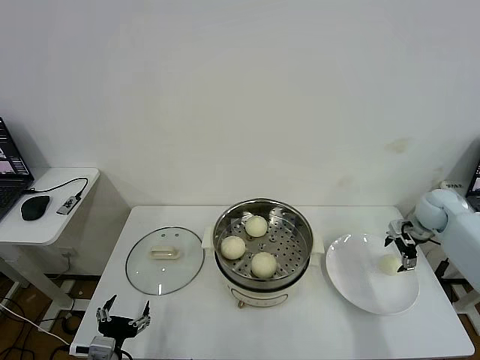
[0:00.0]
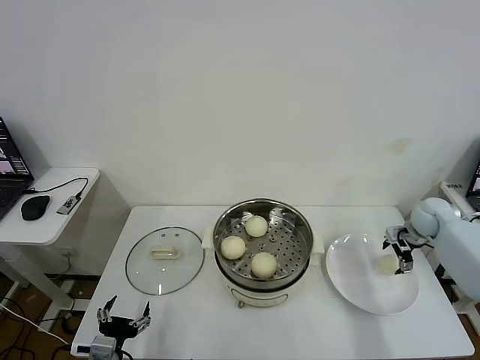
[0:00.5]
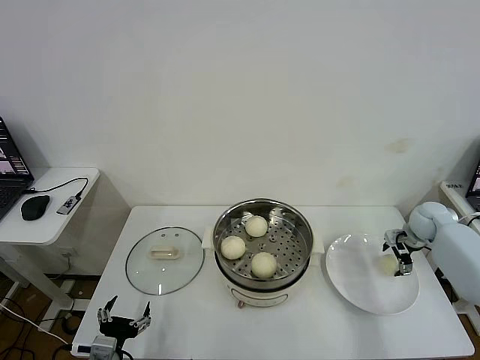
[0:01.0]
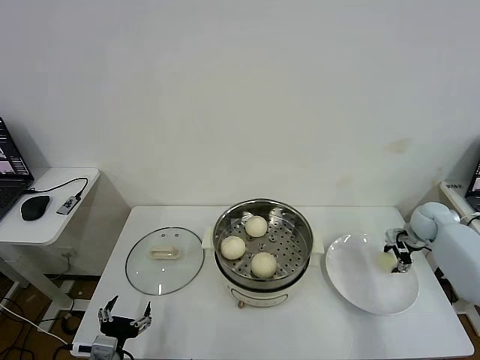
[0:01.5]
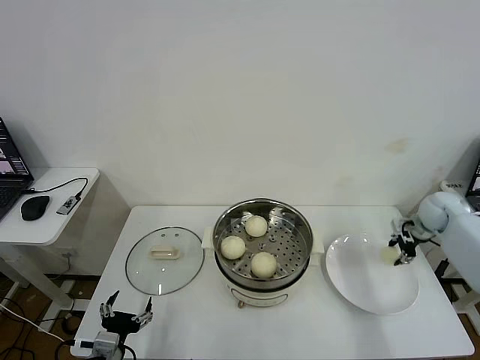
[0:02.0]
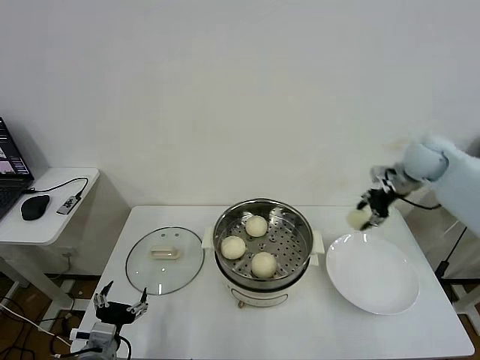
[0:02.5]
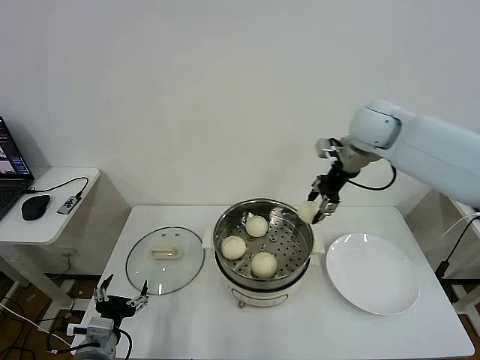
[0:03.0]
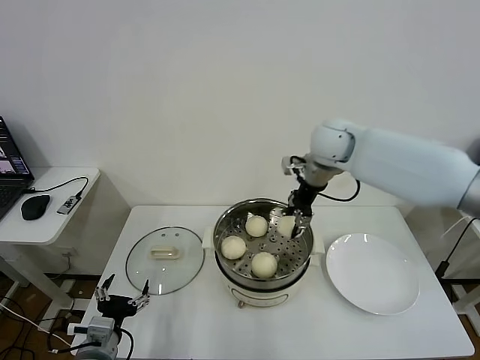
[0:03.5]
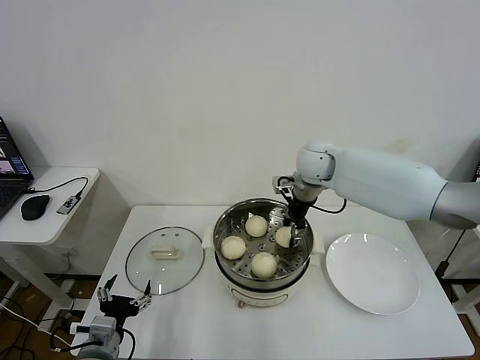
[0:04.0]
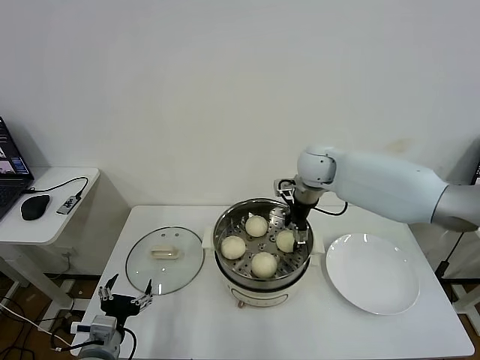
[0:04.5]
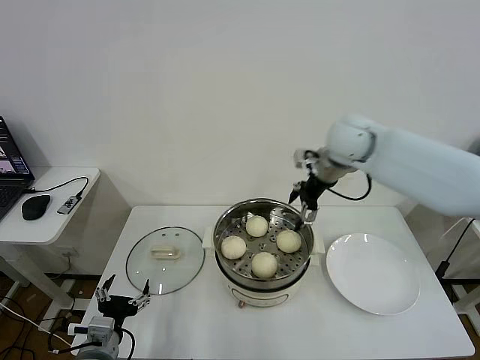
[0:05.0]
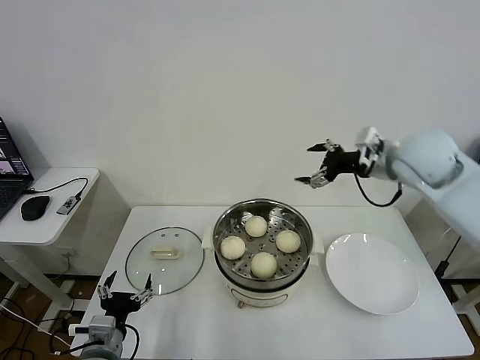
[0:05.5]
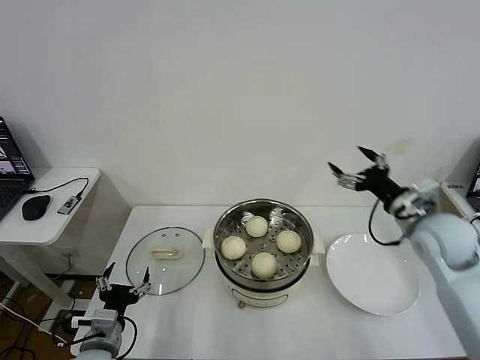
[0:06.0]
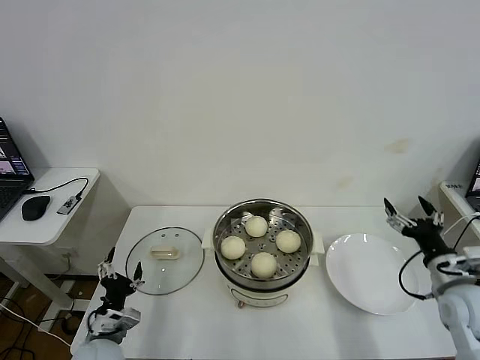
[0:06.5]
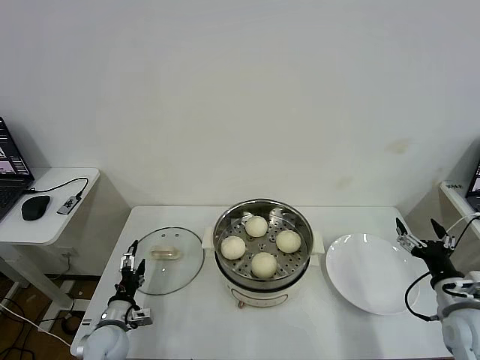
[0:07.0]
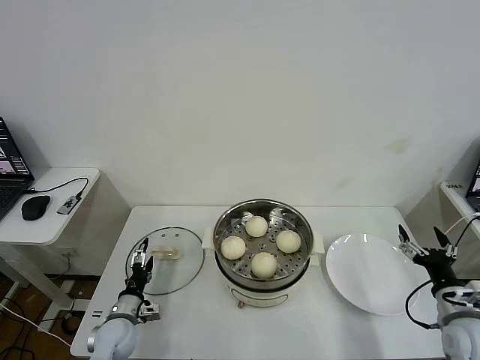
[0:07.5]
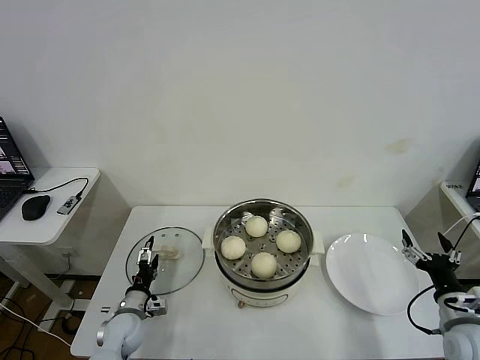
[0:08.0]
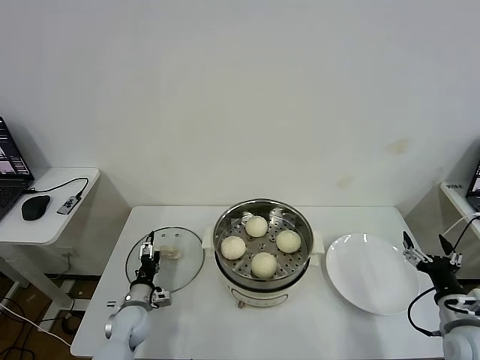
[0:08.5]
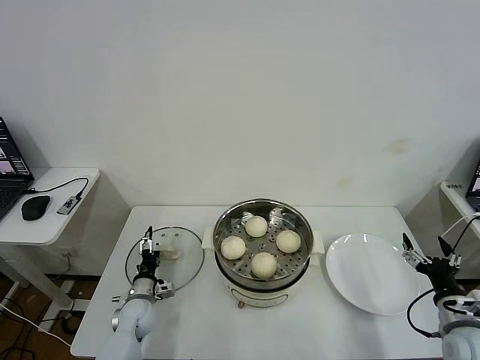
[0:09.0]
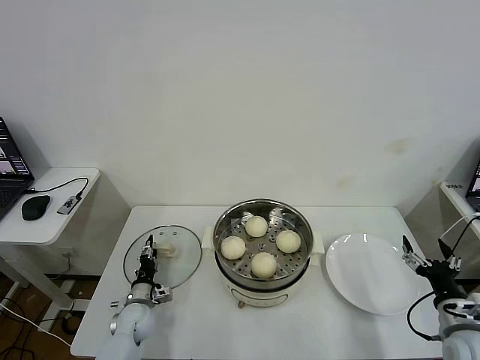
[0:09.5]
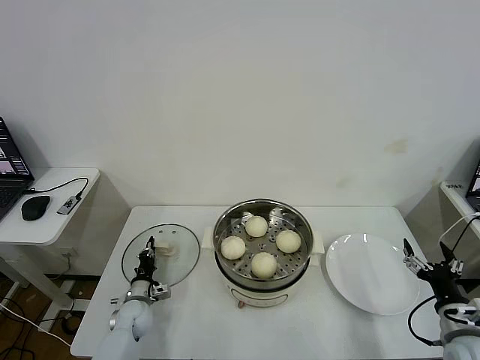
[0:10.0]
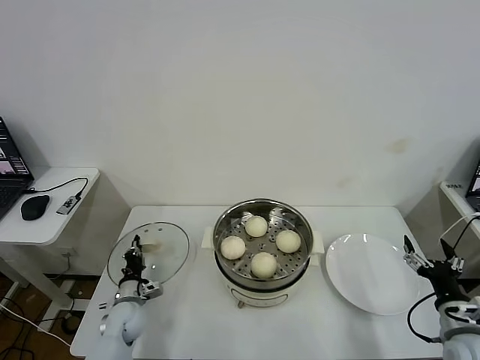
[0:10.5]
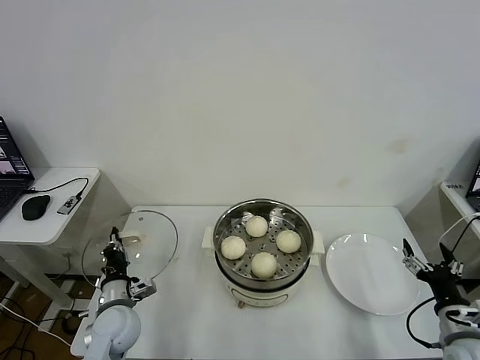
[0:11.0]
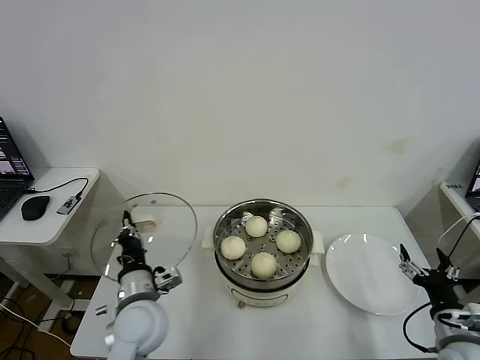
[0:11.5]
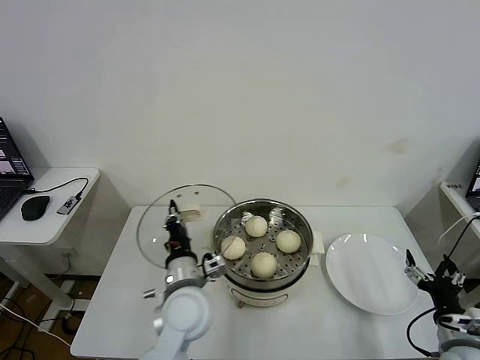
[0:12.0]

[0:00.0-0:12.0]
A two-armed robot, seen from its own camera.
Task of the whole recording: take steamed baozi put them in steamer then cover it.
Step, 0:00.0 to 0:02.0: Grasp the baozi in the plate with right gripper.
Step, 0:02.5 to 0:04.5: Place the baozi on the steamer with right gripper.
Step, 0:05.0 to 0:10.5: Grasp the pot lid with left gripper.
0:00.0 to 0:02.0: The right gripper closes up.
0:02.0 to 0:04.0: The right gripper goes approximately 35 cm to the left.
0:04.0 to 0:06.0: The right gripper shifts approximately 30 cm to the right and backward, and opens its fingers.
0:06.0 to 0:08.0: The right gripper heads backward, downward and to the right, covering roughly 20 cm; the left gripper moves downward and forward, some 15 cm.
0:08.0 to 0:10.0: The left gripper goes approximately 5 cm forward, and closes up.
0:10.0 to 0:12.0: The left gripper shifts roughly 30 cm upward and to the right.

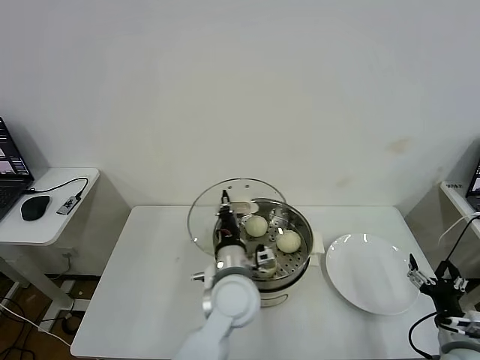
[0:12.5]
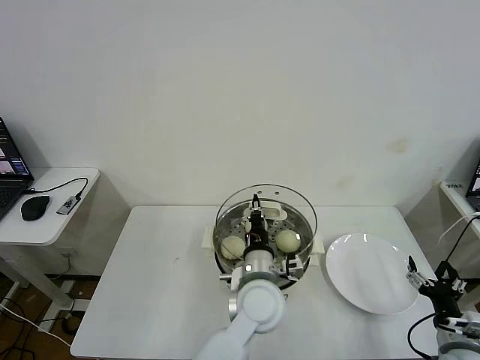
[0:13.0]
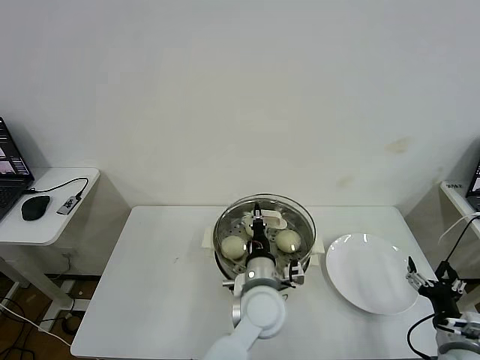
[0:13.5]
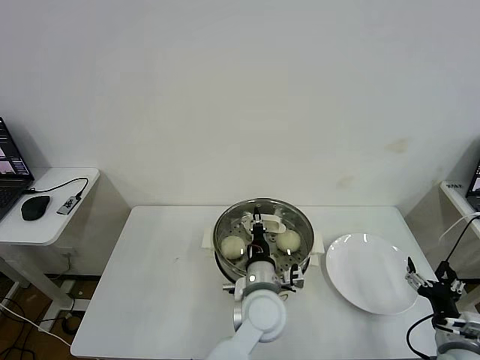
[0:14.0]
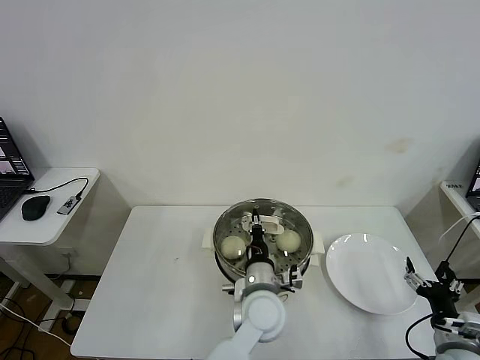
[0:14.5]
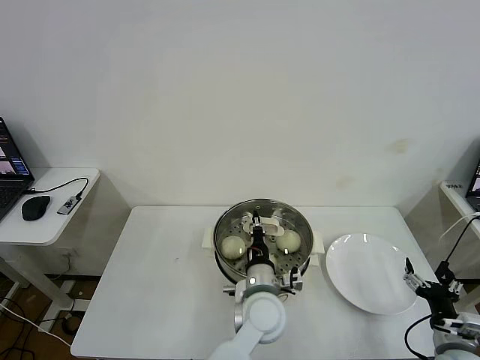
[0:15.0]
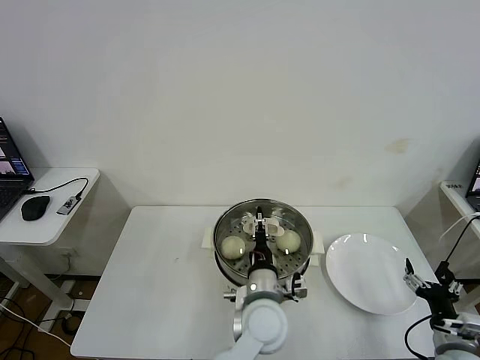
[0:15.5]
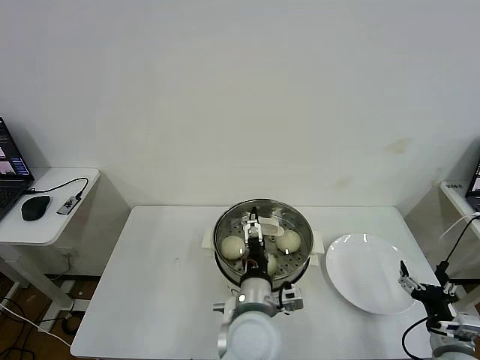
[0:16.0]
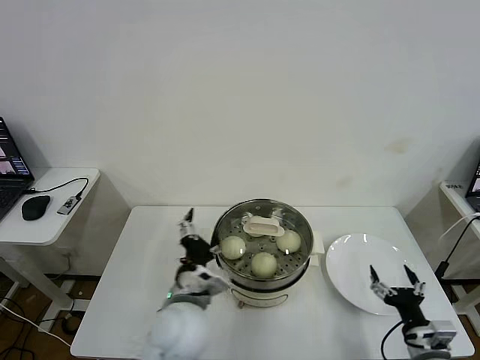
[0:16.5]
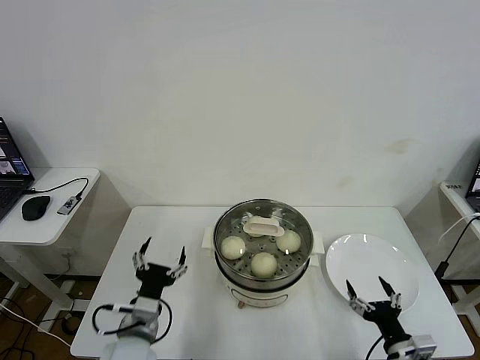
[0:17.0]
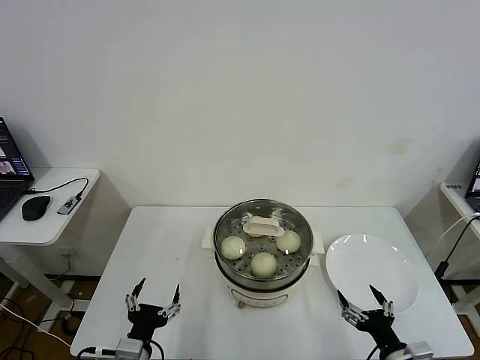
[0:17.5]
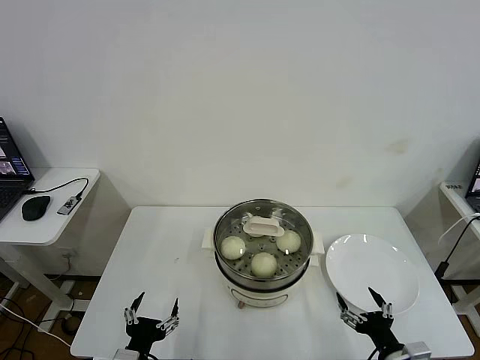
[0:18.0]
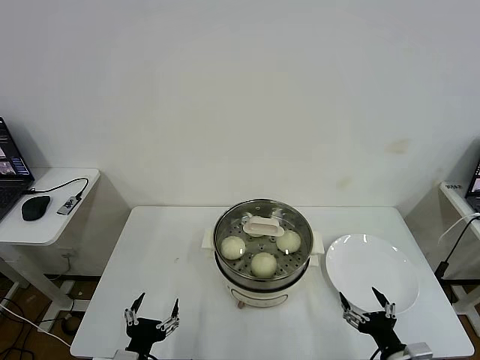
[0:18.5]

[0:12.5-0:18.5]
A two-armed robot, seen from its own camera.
Task of the whole recording: take steamed baozi put them in steamer then cover it.
Step, 0:12.5 to 0:16.0: Place the pot lid on the steamer with left gripper.
0:12.5 to 0:14.5: The left gripper is displaced to the right by approximately 5 cm.
0:14.5 to 0:16.5: The left gripper shifts approximately 15 cm to the left and upward, and opens up.
0:16.5 to 0:18.5: The right gripper moves to the left, some 5 cm, while the left gripper heads to the left, backward and downward, covering approximately 20 cm.

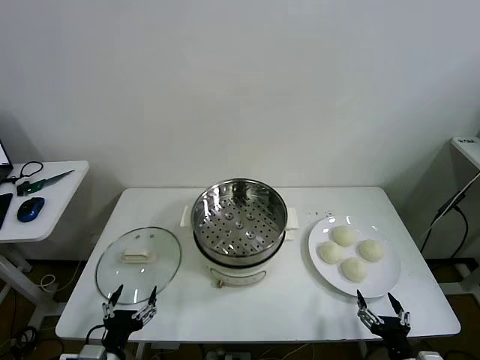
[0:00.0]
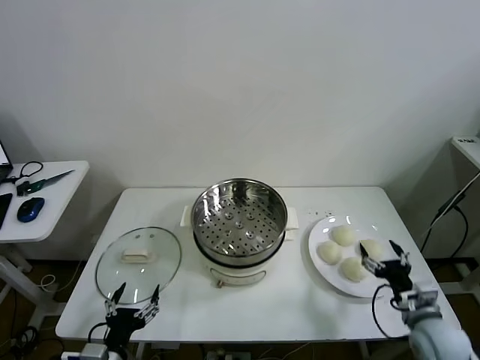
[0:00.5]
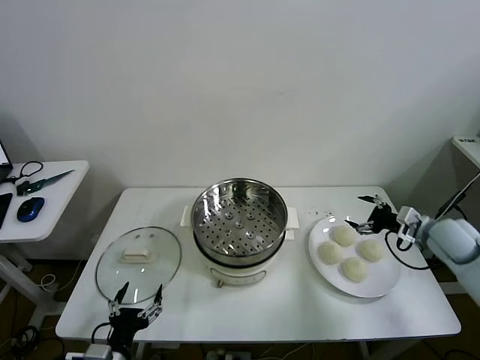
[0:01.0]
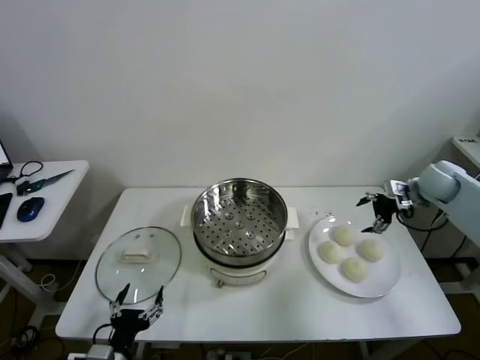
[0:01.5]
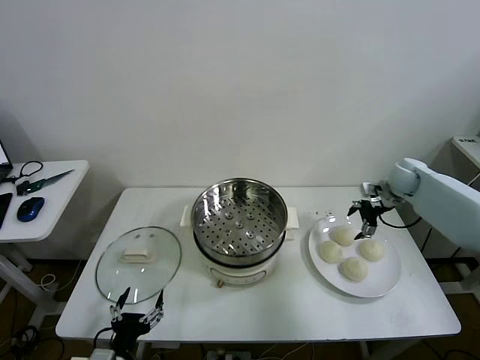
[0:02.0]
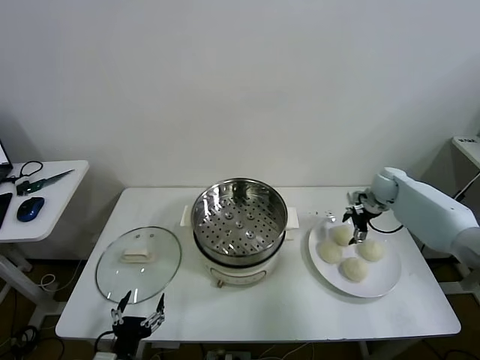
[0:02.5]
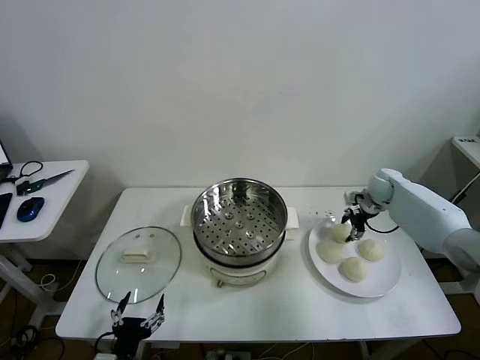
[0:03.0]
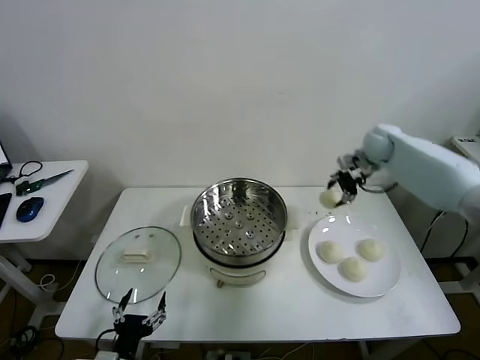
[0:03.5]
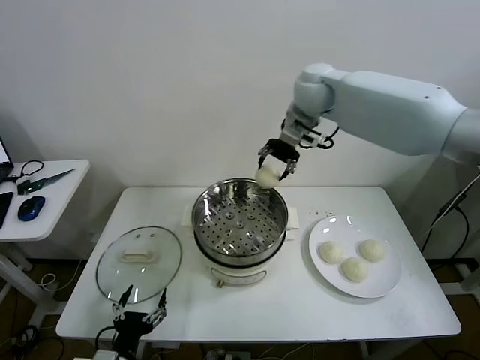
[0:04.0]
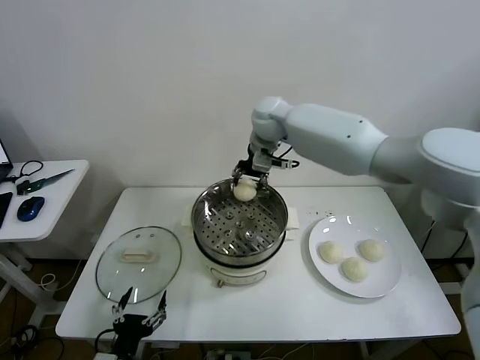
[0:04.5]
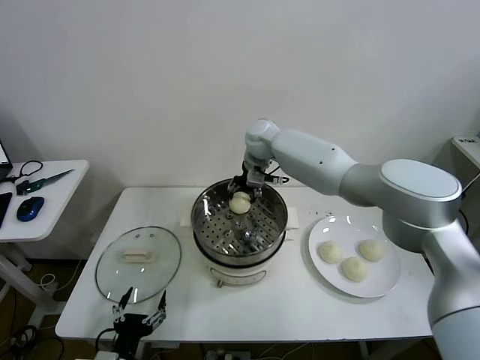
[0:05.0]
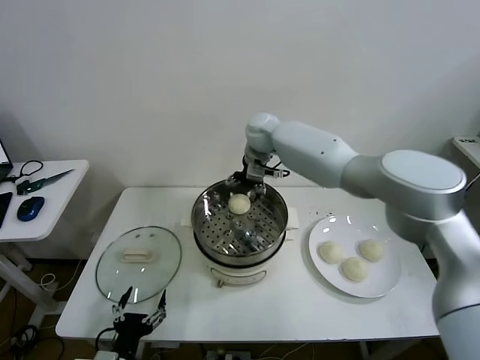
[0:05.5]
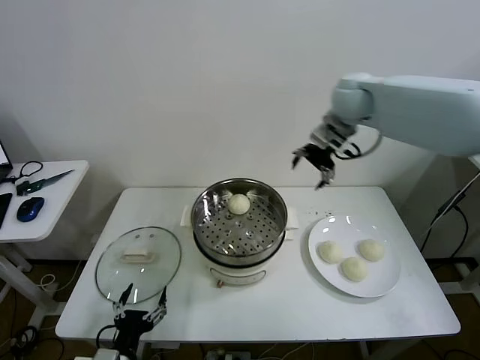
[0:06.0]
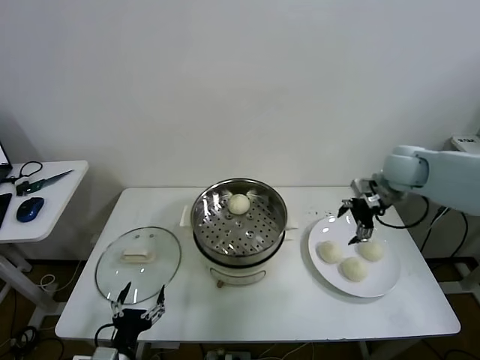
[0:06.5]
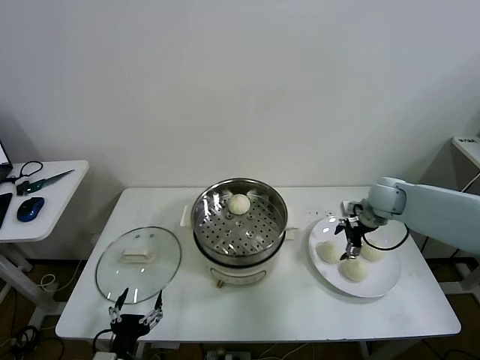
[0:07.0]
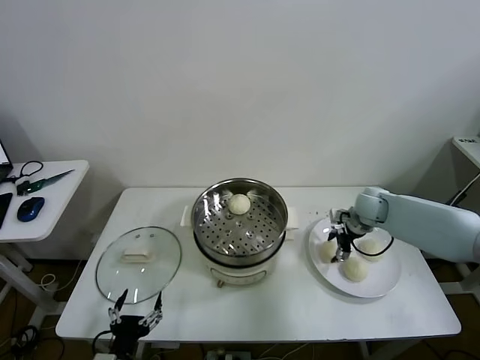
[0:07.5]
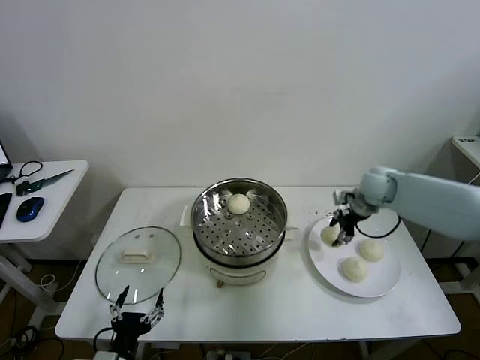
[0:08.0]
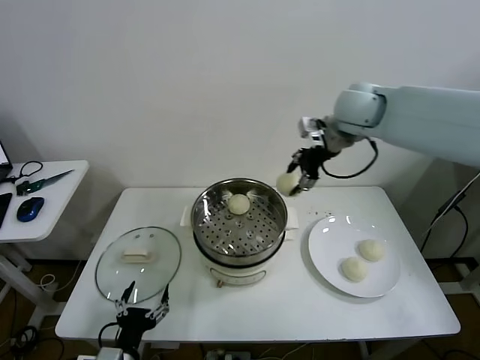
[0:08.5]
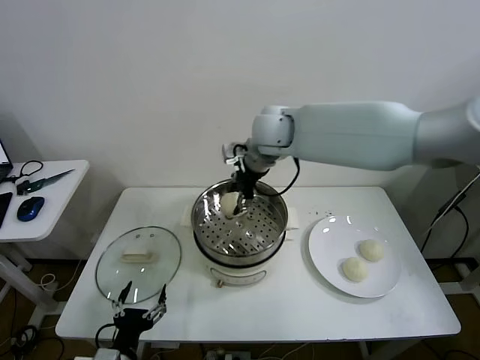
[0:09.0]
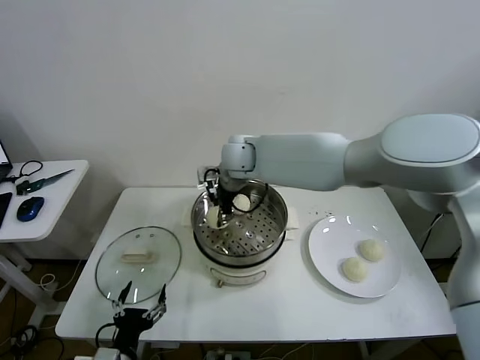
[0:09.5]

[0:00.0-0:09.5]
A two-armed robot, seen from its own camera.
Task of the whole recording: take steamed baozi put them in steamer then cover it.
Step, 0:00.0 to 0:02.5: Grasp the baozi in the plate with right gripper.
Step, 0:03.0 to 0:05.0: Place the baozi on the steamer with right gripper.
Step, 0:05.5 to 0:07.5: Grasp the baozi in the plate with right gripper.
0:02.0 to 0:04.0: The right gripper goes some 40 cm to the left and upward, and closes.
0:04.0 to 0:05.5: The right gripper moves downward and to the left, some 10 cm, and opens.
0:05.5 to 0:07.5: The right gripper heads to the right and downward, covering some 35 cm, and closes.
0:07.5 to 0:09.5: The right gripper heads to the left and upward, covering some 40 cm.
